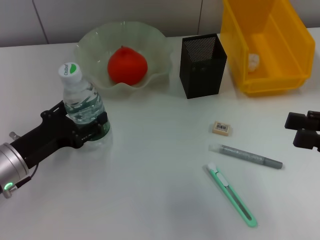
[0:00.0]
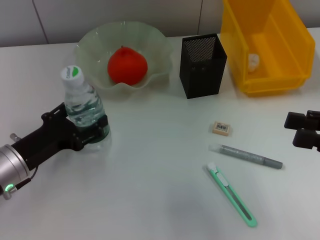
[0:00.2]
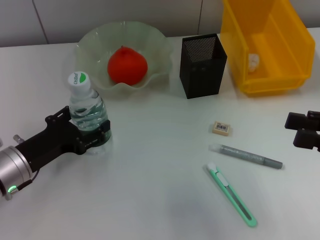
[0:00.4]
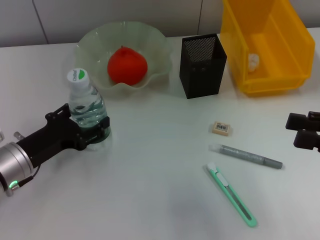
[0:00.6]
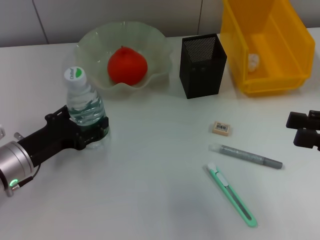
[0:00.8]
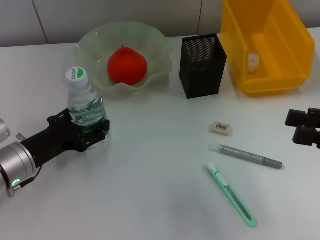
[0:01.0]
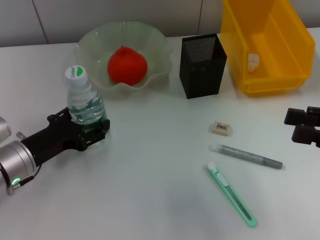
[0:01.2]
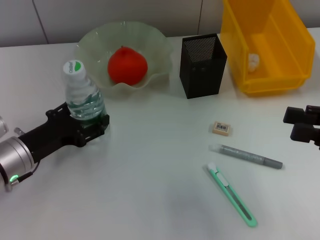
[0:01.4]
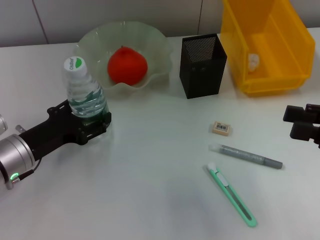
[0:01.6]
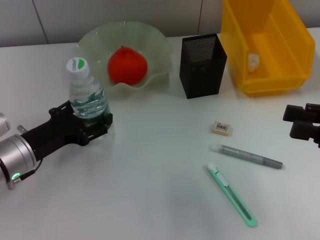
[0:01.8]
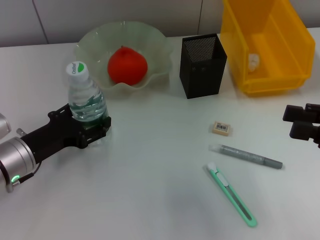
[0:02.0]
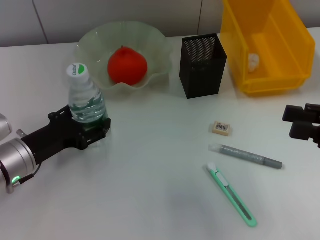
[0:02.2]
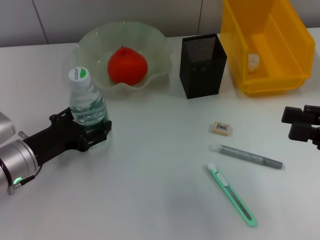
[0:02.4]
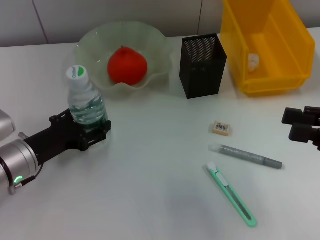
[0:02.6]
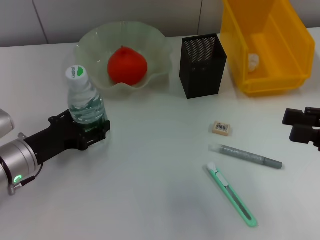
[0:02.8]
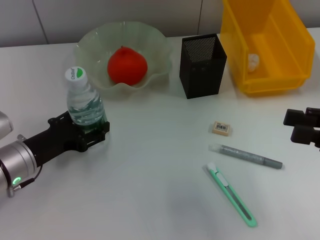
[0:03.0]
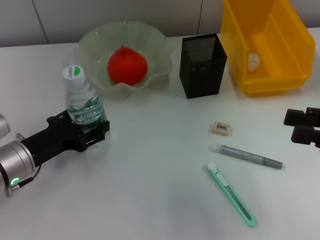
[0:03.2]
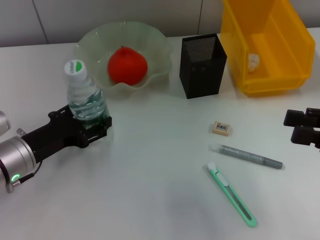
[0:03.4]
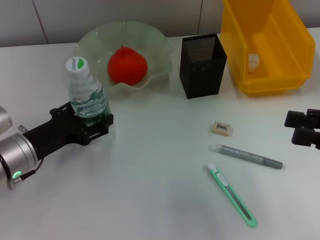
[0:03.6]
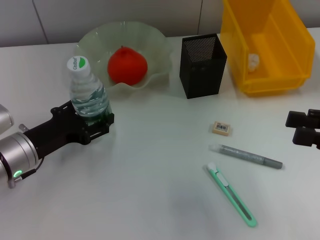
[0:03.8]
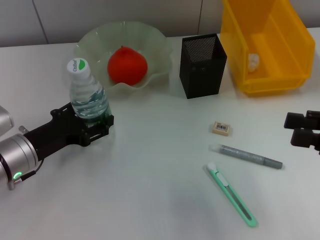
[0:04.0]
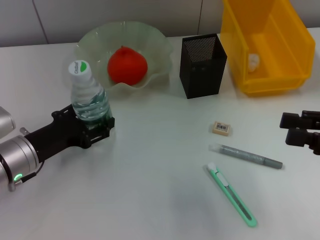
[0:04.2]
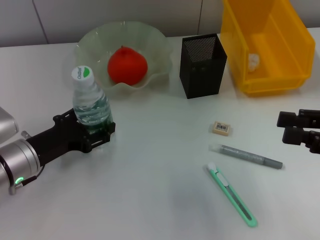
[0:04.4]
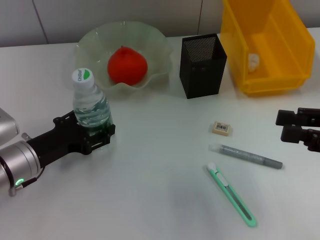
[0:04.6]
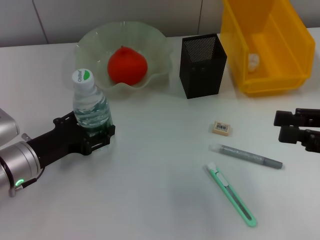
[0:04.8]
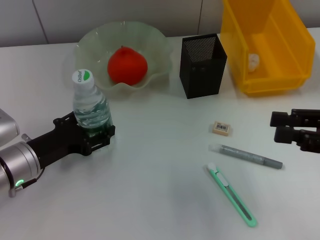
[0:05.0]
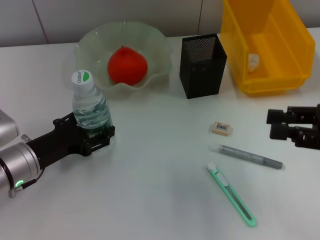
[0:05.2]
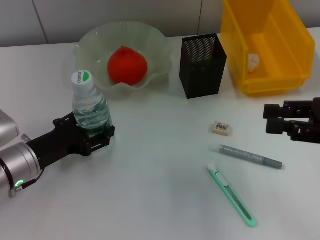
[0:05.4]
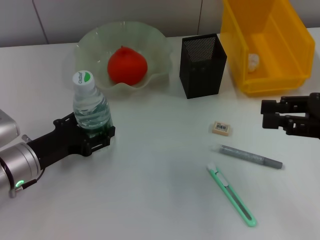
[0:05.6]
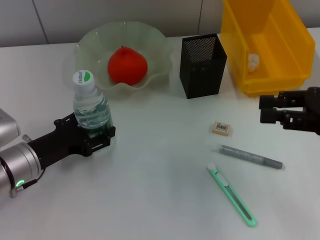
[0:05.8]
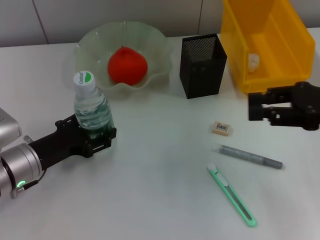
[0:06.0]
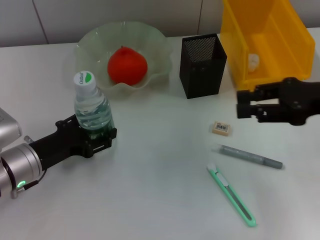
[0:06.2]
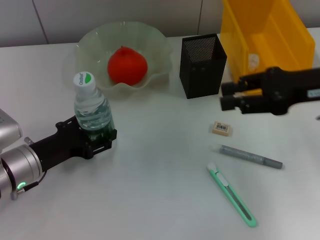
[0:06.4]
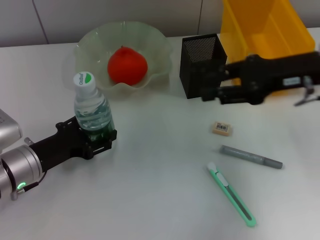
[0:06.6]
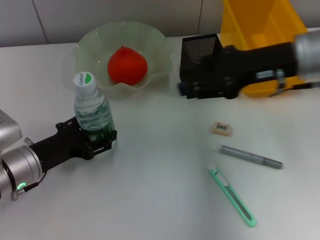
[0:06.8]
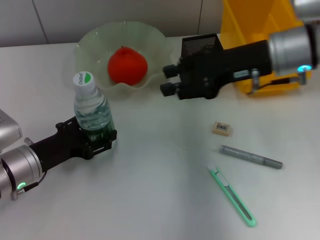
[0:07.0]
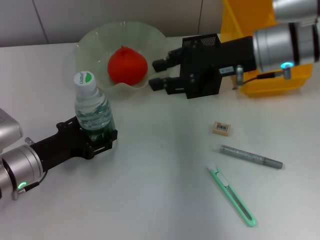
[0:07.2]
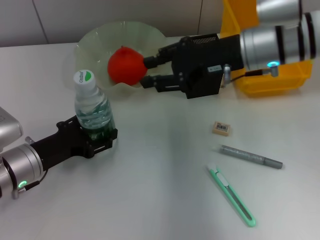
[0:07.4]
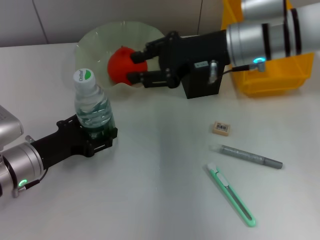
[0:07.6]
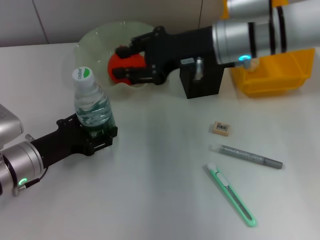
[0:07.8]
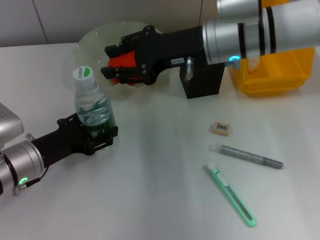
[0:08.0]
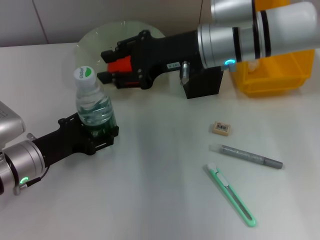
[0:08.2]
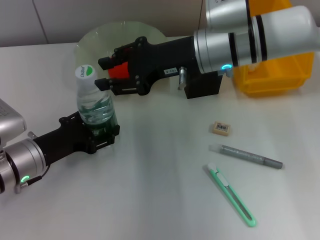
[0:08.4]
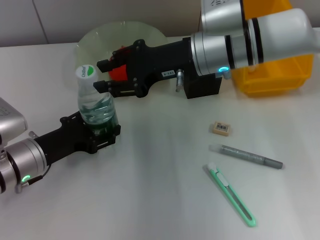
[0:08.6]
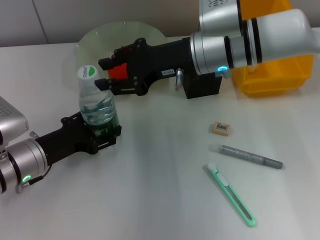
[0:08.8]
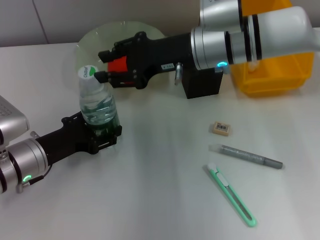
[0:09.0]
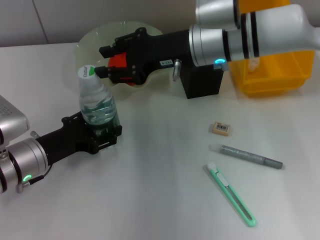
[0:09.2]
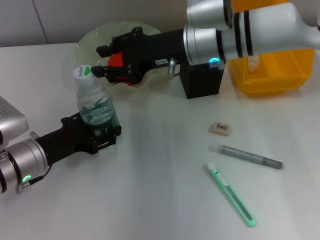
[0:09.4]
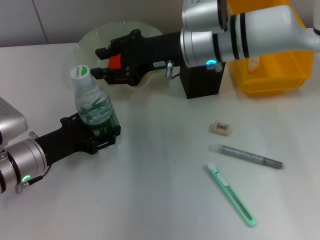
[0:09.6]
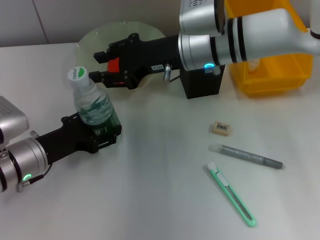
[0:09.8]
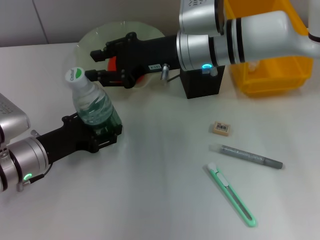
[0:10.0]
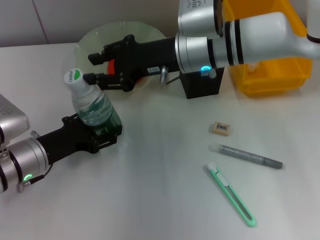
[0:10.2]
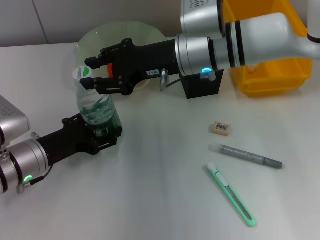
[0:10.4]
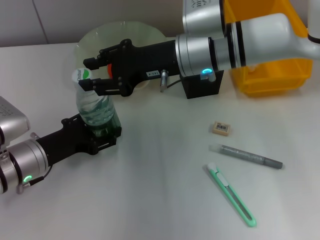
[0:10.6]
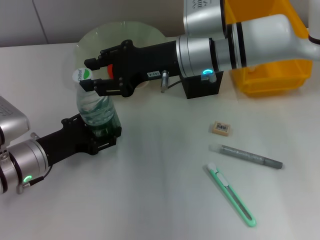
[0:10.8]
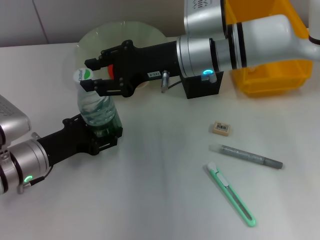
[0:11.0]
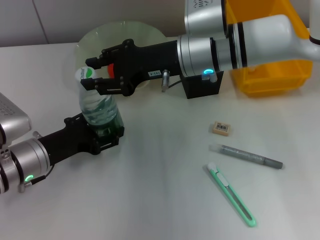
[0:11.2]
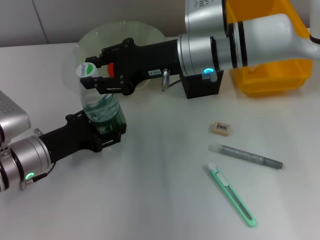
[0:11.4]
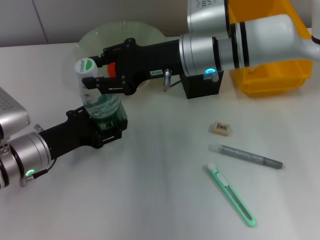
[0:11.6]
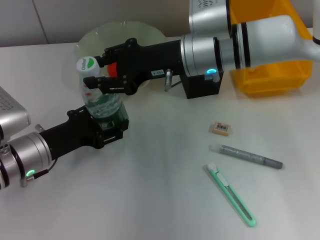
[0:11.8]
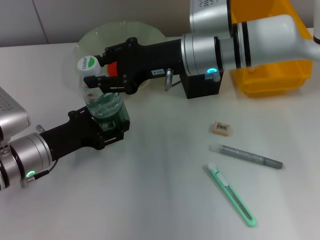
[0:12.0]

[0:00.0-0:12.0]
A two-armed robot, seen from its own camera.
0:00.0 to 0:04.4: There are only small adjustments of the grippers.
0:04.4 to 0:06.0: The right gripper moves forward, some 5 cm.
0:06.0 to 0:07.6: The right gripper travels to the left and forward by roughly 20 cm.
0:07.6 to 0:09.0: The grippers stay close to where they were, moving slightly.
0:09.0 to 0:10.4: There are only small adjustments of the grippers.
0:10.4 to 0:12.0: Both grippers stay put.

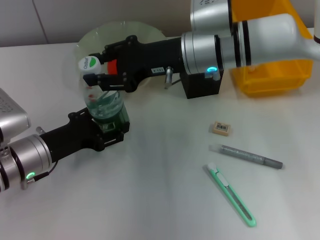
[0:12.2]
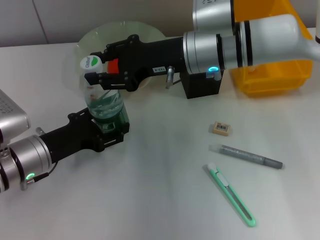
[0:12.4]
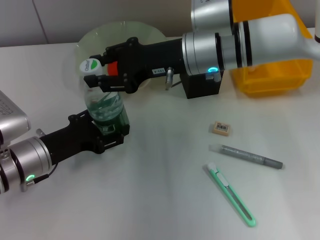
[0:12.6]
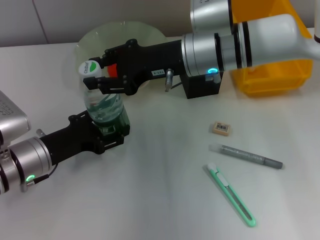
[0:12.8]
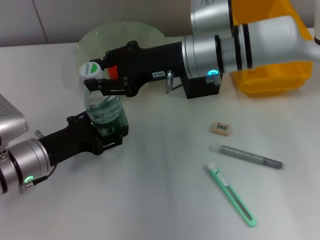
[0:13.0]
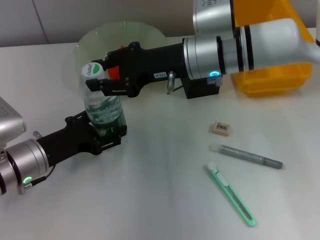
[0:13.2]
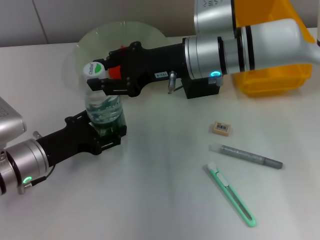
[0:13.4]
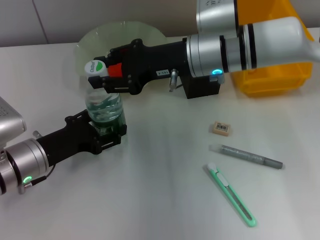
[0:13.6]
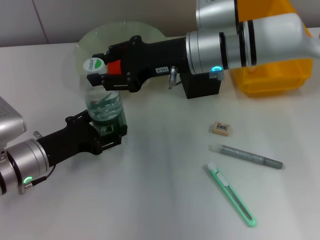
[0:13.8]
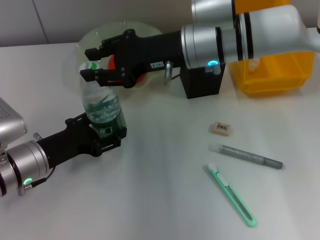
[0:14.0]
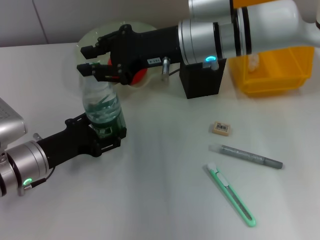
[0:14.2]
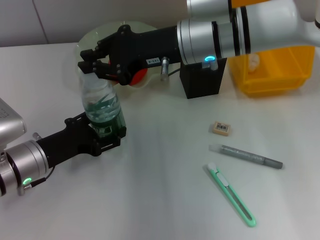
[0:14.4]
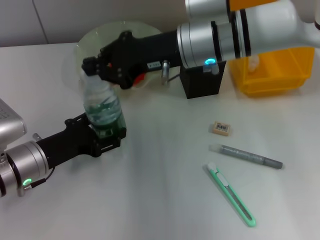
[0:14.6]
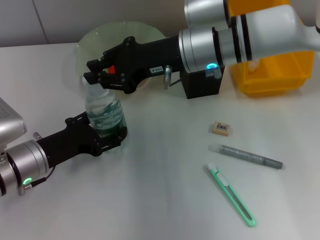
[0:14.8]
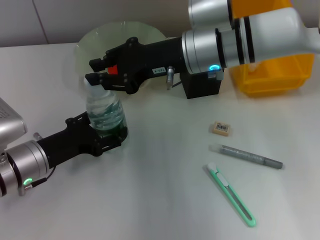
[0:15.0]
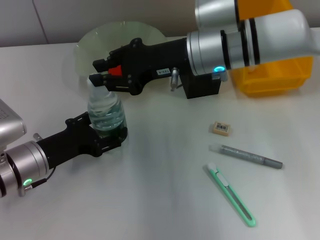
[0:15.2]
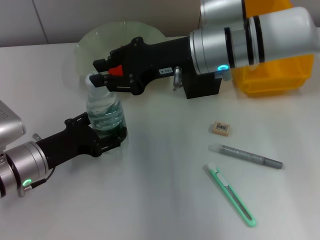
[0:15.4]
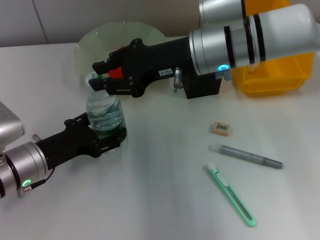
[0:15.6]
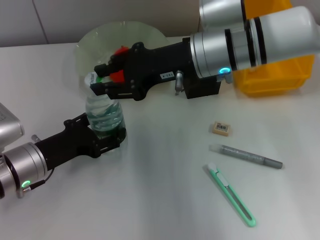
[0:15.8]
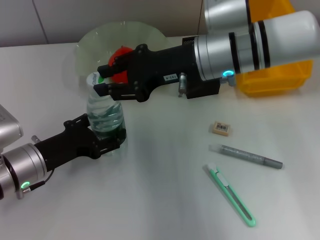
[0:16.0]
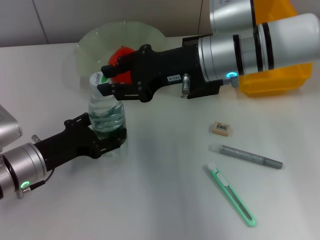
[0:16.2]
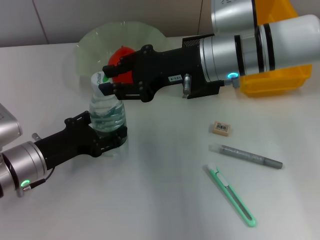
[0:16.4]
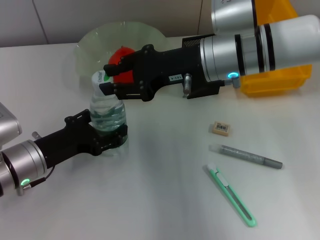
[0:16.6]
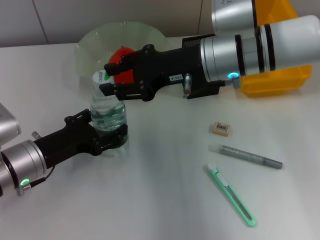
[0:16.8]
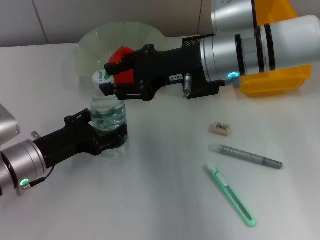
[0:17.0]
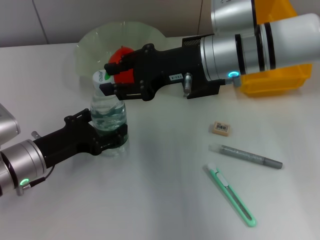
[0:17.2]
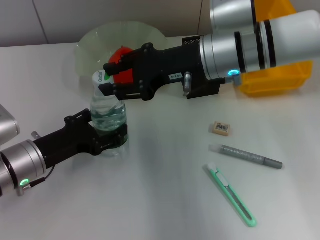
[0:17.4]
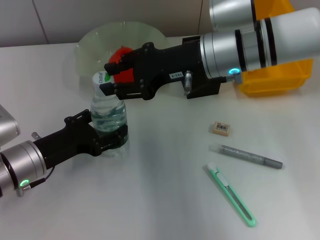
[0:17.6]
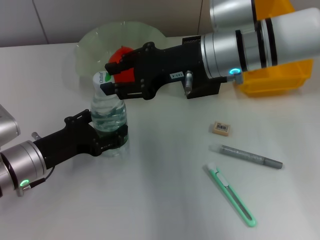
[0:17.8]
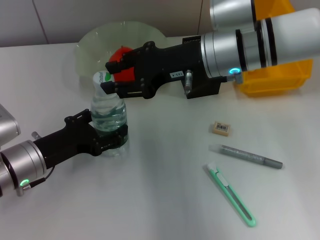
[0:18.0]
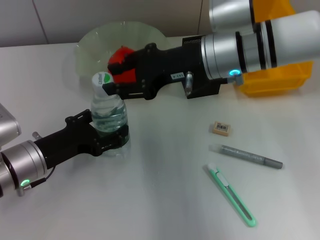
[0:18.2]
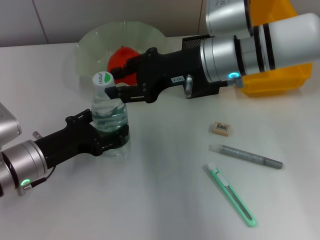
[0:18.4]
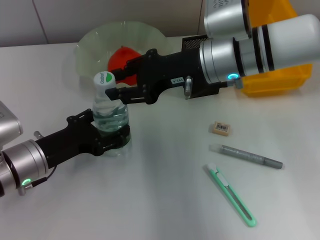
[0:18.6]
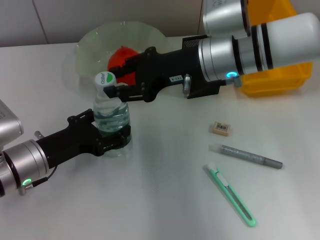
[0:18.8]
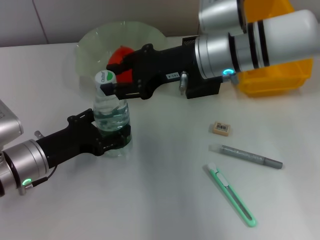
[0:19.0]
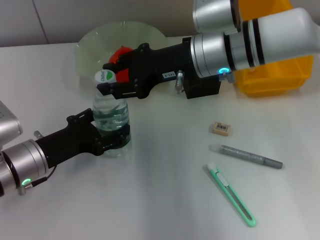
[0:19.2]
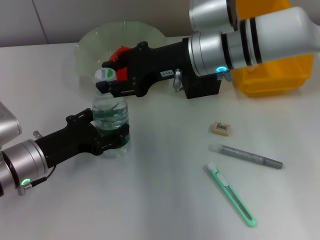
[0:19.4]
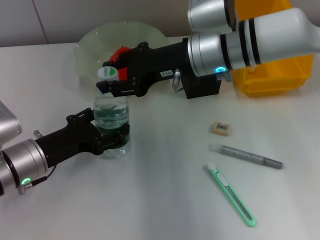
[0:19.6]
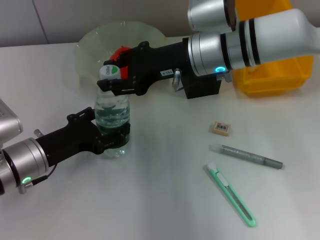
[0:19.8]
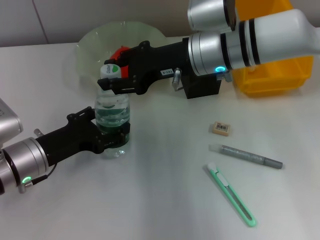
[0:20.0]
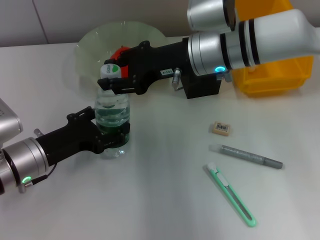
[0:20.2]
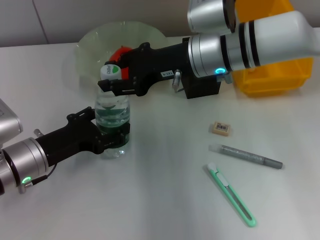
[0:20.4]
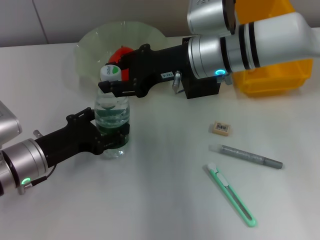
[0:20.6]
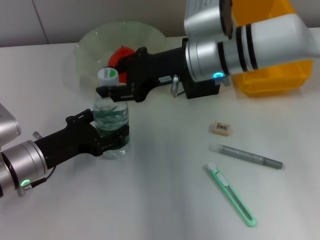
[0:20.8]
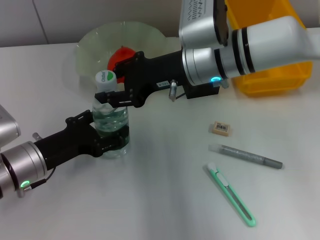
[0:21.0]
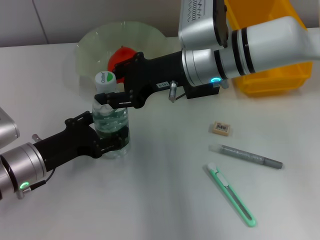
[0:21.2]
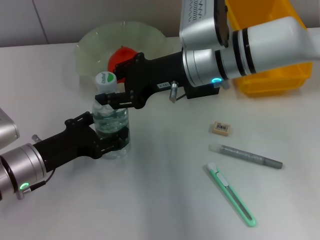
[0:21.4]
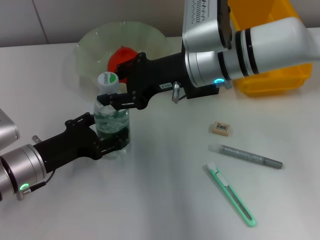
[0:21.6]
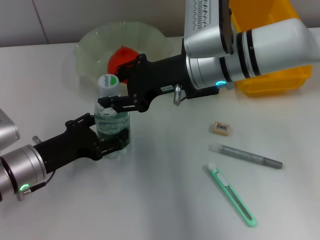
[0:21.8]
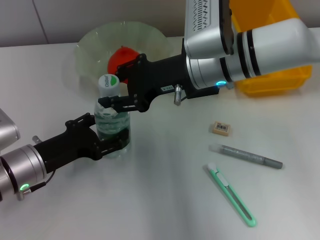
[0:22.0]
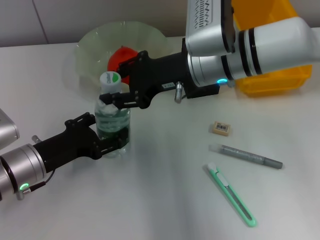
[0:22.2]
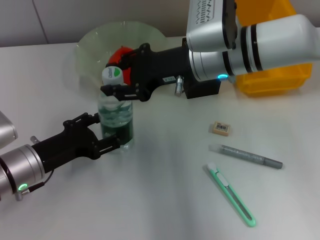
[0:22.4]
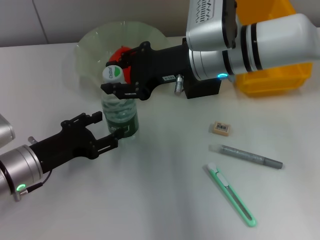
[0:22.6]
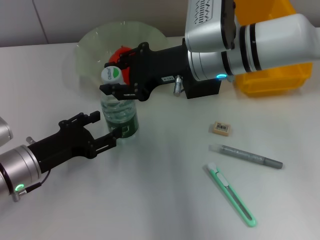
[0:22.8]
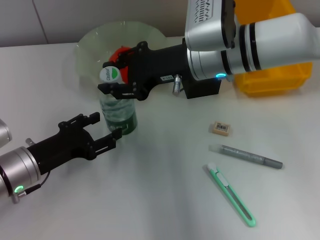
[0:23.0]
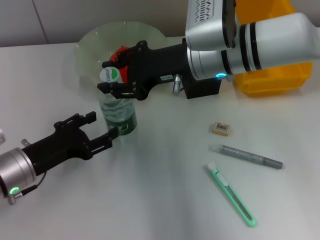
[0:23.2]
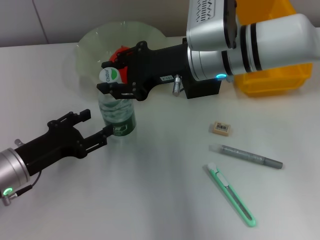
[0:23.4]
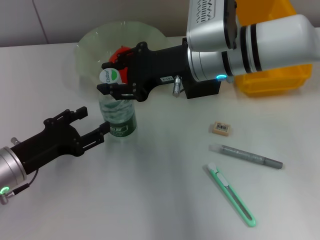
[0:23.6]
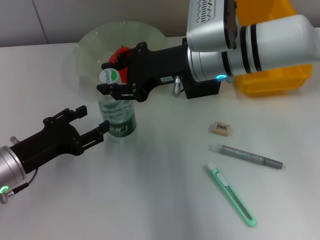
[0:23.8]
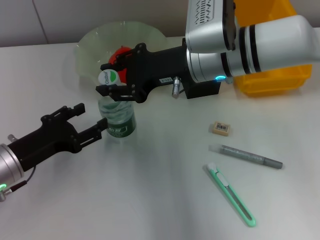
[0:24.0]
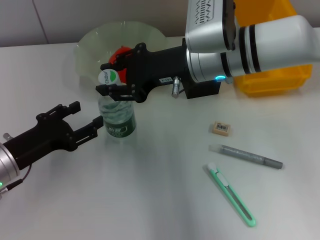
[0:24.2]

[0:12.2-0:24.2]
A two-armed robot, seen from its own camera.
0:12.2 to 0:13.8: Both grippers stay put.
0:13.8 to 0:16.6: There are only small adjustments of the grippers.
0:16.6 to 0:18.2: Neither gripper changes place.
0:18.2 to 0:24.2: The grippers stay close to where they were, moving slightly.
